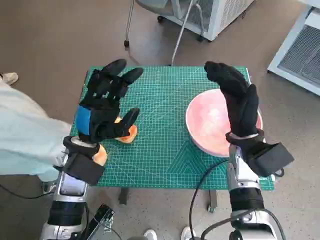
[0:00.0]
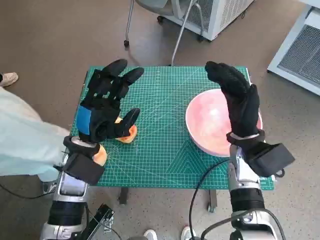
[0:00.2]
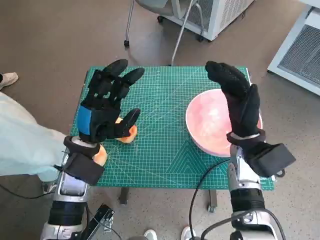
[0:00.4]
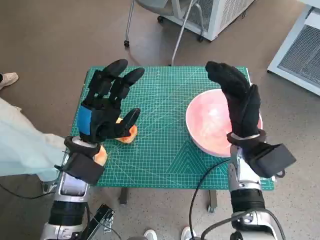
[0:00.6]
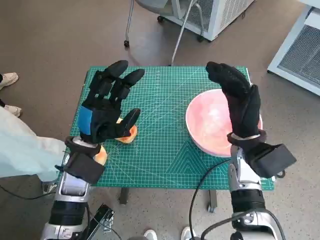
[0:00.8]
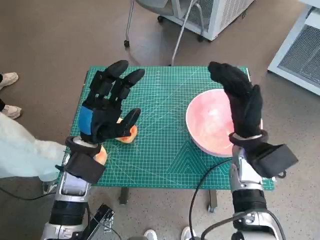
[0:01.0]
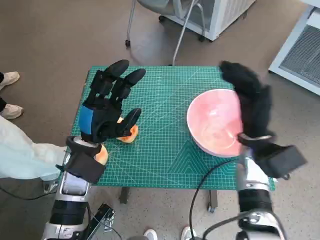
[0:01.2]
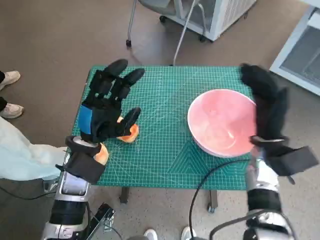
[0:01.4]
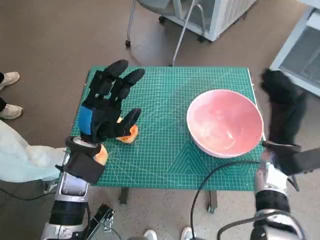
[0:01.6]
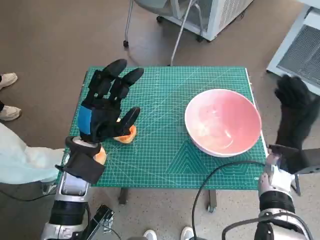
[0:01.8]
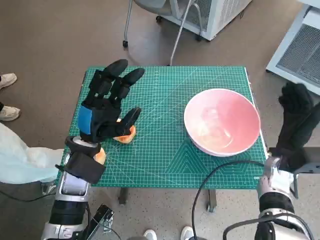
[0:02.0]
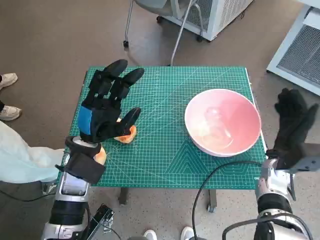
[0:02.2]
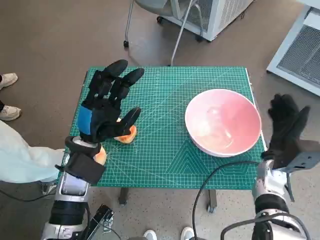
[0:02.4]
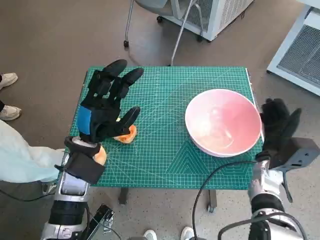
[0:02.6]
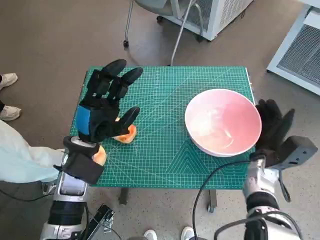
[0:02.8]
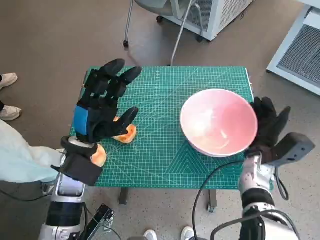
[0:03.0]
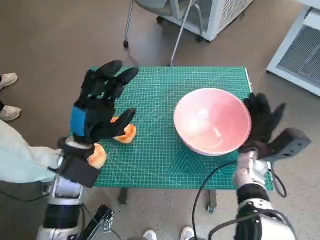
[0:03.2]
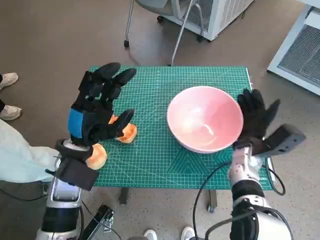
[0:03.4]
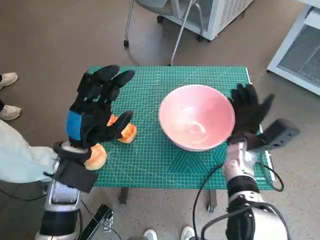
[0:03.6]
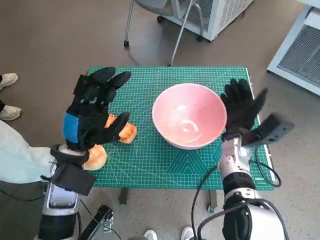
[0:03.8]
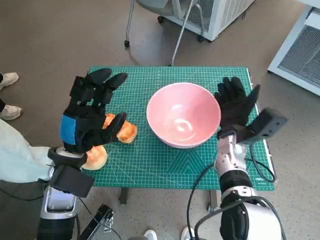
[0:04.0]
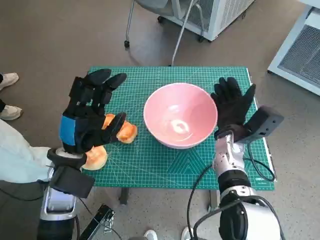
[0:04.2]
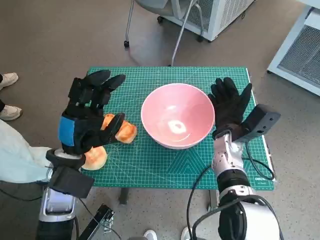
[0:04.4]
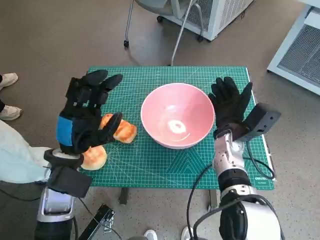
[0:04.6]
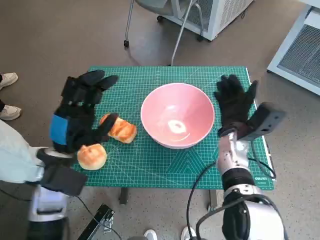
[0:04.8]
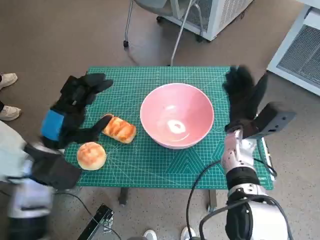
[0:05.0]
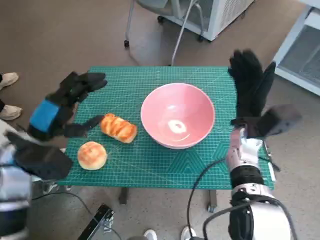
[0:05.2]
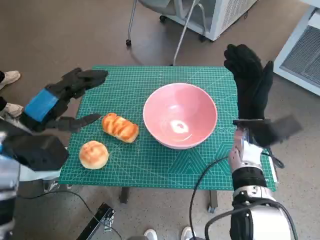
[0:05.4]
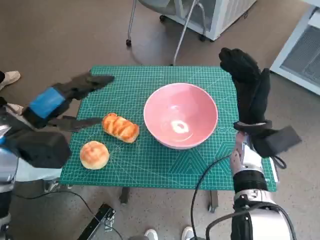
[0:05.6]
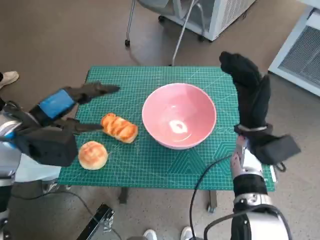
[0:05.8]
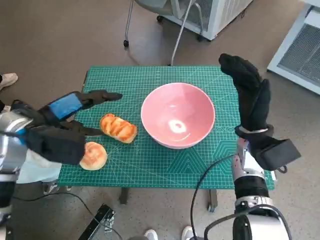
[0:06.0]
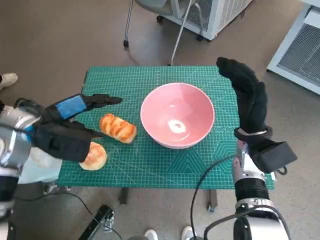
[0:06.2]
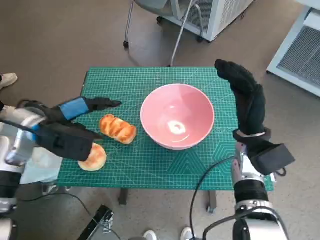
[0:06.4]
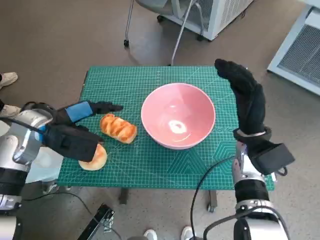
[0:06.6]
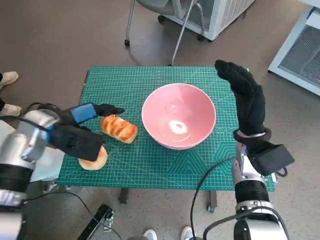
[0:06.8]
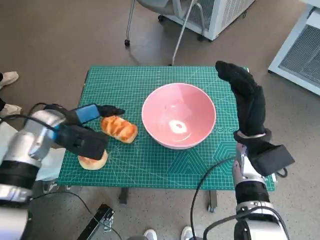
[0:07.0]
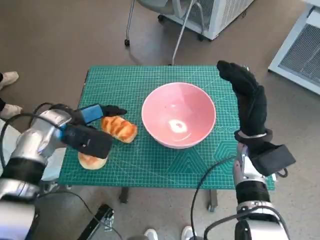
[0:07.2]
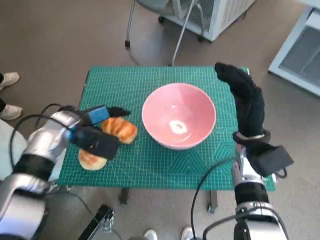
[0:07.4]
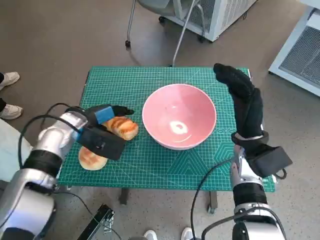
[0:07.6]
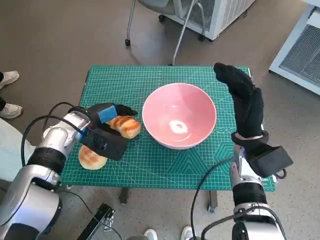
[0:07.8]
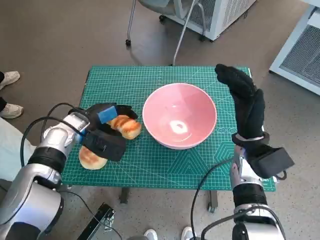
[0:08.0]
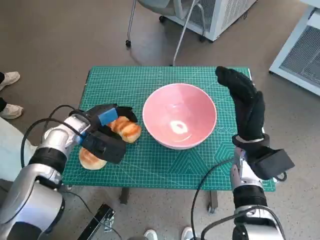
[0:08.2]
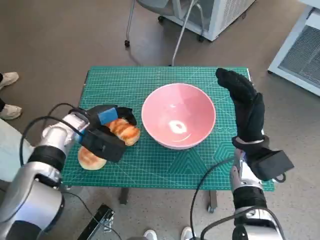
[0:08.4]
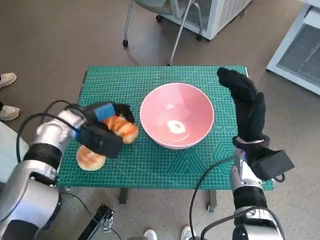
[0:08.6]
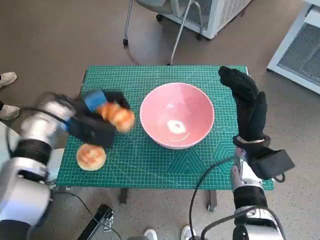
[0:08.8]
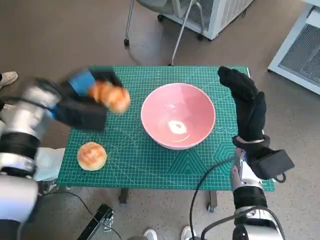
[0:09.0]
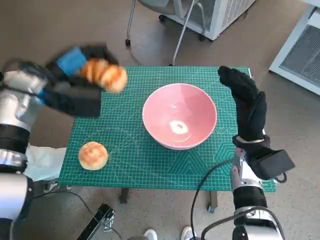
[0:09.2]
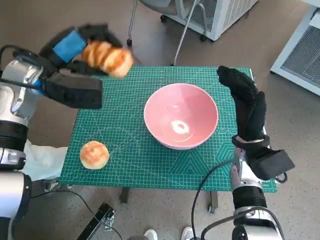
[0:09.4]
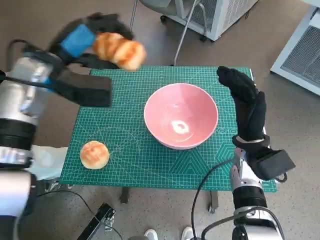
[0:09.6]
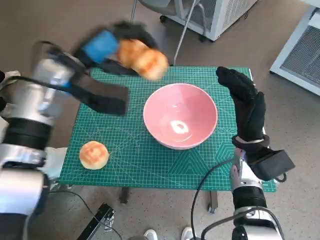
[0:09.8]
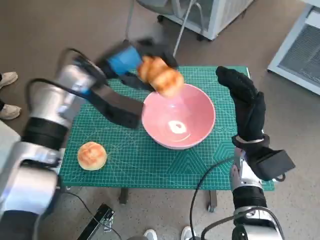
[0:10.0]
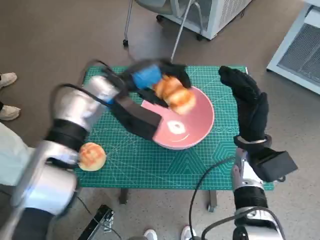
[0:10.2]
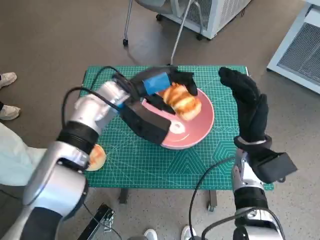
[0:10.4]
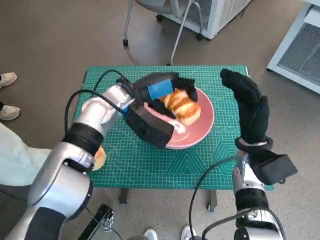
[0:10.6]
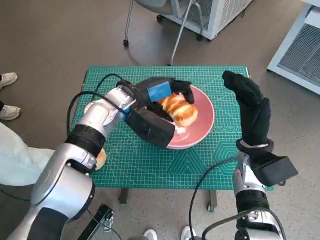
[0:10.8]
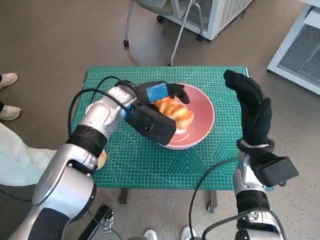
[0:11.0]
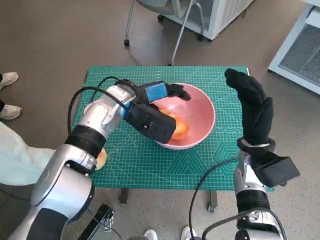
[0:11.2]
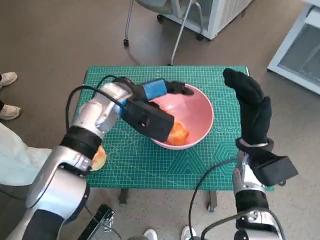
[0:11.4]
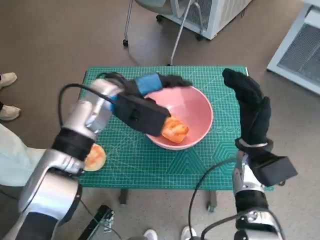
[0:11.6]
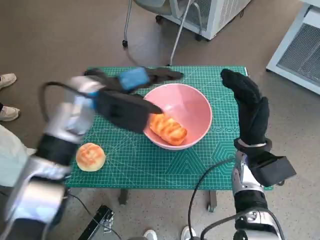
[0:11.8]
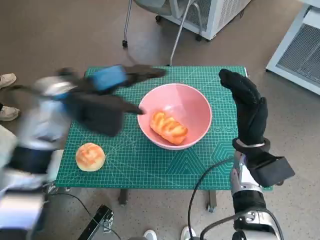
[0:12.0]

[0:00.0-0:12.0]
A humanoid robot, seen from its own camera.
Task of the whole recording: Push the bowl to the center of the table and put the bread into the bowl.
Step, 0.0 to 4.8 s: Move the pink bowl to the center of table with right hand.
Step, 5.0 to 8.0 s: Grasp the long bread with left hand.
Step, 8.2 to 11.4 s: Place the long bread in pink bowl with left hand.
1.6 to 3.0 s: The right hand heads downward, covering approximately 5 cm.
3.0 to 4.4 s: The right hand shifts roughly 5 cm to the left.
4.4 to 6.0 s: The right hand moves some 5 cm; the left hand is displaced upward and to the left by roughly 10 cm.
6.0 to 7.6 s: The left hand travels downward and forward by roughly 10 cm.
7.6 to 9.0 s: The left hand heads upward, covering roughly 5 cm.
9.0 to 10.4 s: The left hand heads to the right, covering approximately 15 cm.
10.4 to 12.0 s: The left hand shifts about 5 cm to the left.

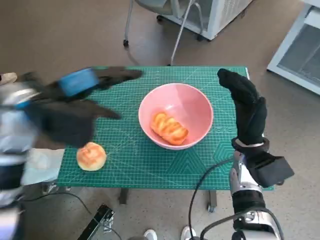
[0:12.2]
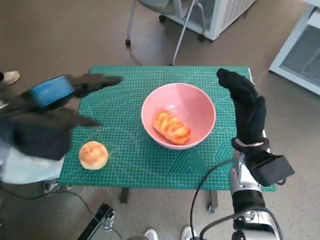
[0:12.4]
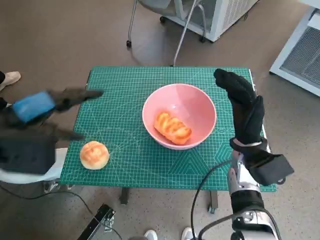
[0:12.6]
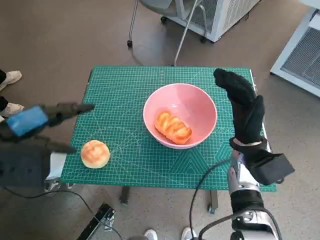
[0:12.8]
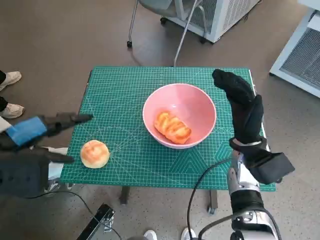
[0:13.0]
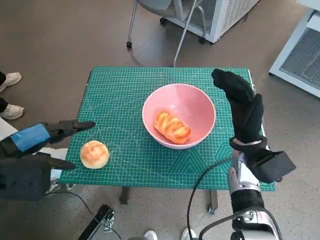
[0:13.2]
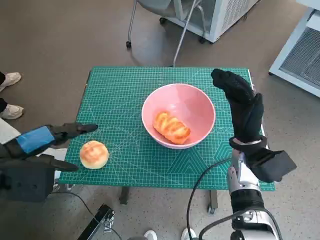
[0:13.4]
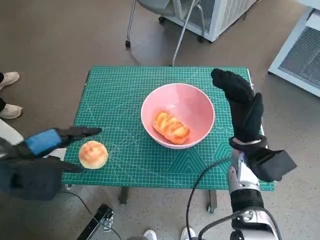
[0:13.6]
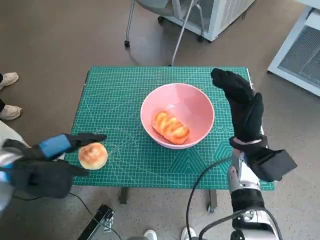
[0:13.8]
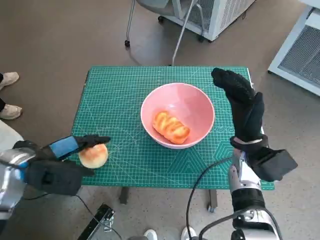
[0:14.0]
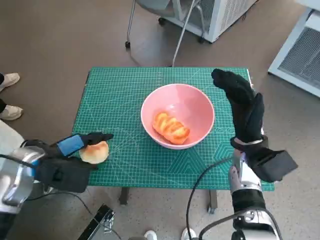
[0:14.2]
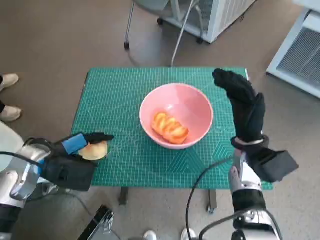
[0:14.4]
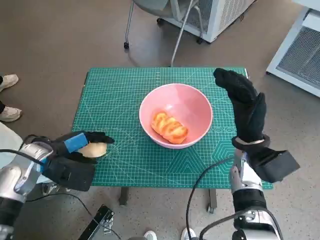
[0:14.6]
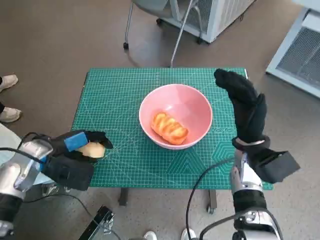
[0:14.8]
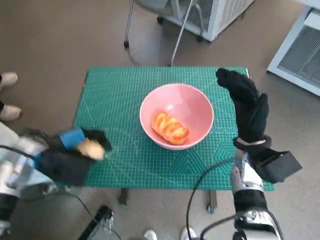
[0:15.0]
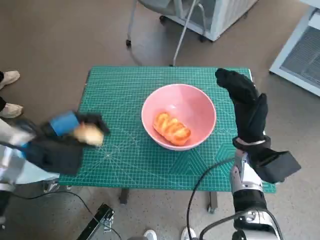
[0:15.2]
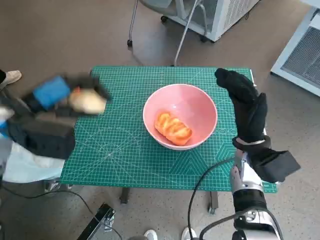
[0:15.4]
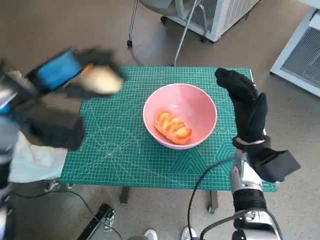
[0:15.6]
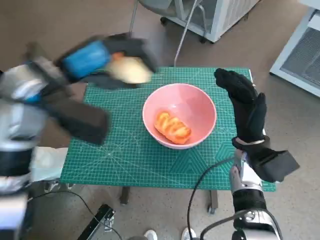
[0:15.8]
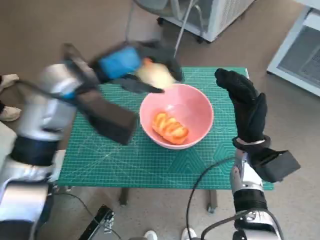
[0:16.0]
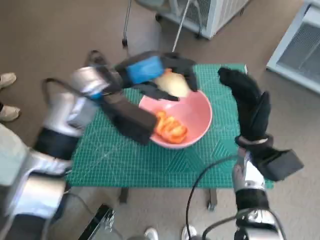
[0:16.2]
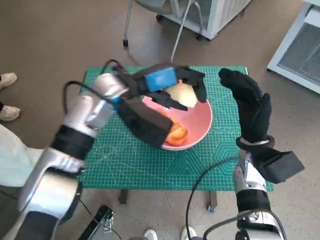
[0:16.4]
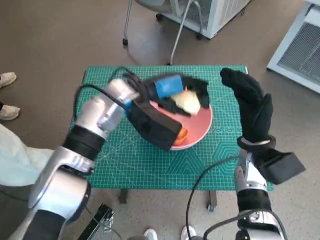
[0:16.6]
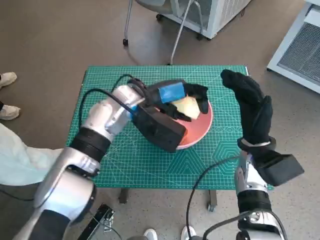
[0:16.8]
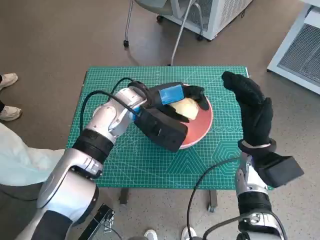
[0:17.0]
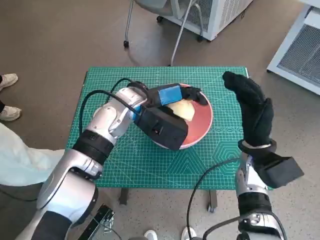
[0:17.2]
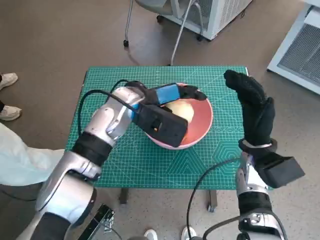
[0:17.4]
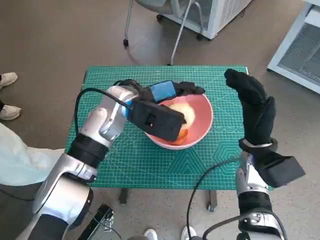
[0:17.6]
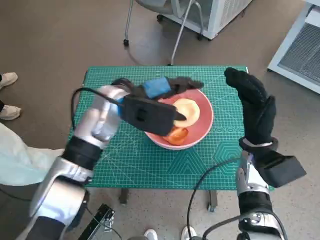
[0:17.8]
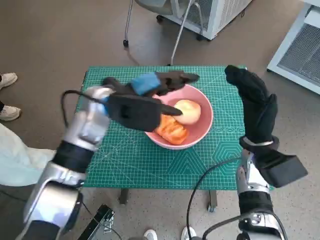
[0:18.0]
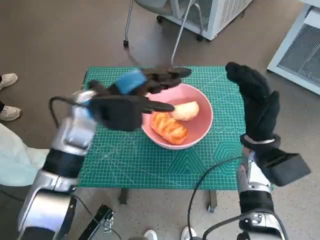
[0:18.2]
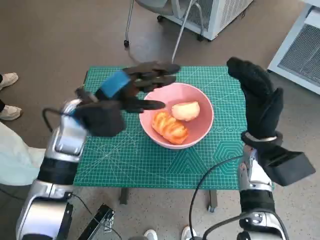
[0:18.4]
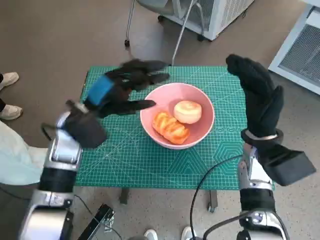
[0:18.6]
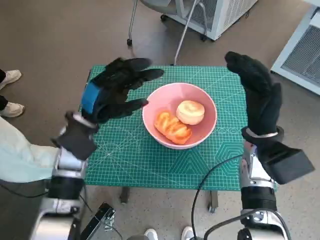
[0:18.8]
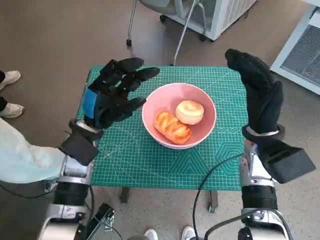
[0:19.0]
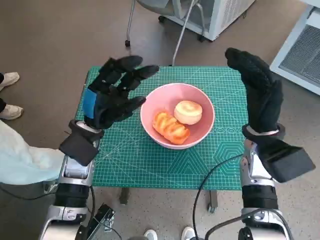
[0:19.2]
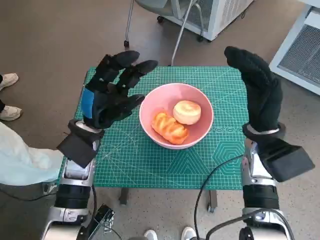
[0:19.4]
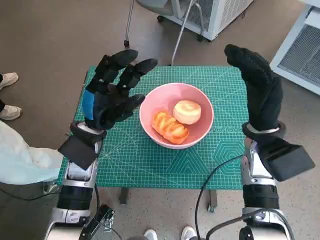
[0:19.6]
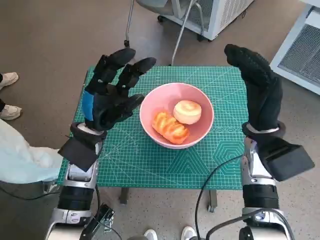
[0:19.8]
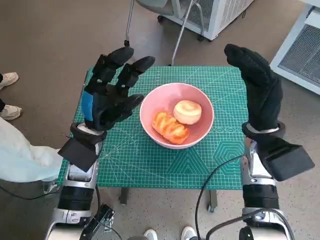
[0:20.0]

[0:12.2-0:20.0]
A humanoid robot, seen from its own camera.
Task of the whole recording: Push the bowl to the center of the table and put the bread into the bowl.
Step, 12.2 to 14.4 s: Grasp the round bread with left hand.
Step, 14.6 to 17.6 s: Place the round bread in pink bowl with left hand.
12.2 to 13.8 s: The left hand shifts roughly 15 cm downward, backward and to the left.
13.8 to 15.4 s: The left hand moves forward, roughly 5 cm.
15.4 to 16.8 s: The left hand goes some 20 cm to the right and forward.
16.8 to 18.4 s: The left hand travels to the left by approximately 10 cm.
18.4 to 20.0 s: The left hand moves downward, some 5 cm.

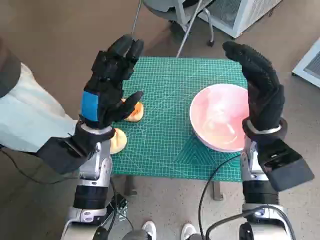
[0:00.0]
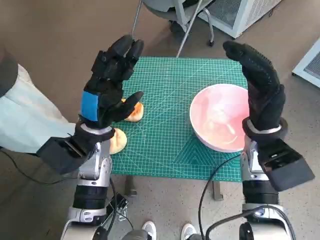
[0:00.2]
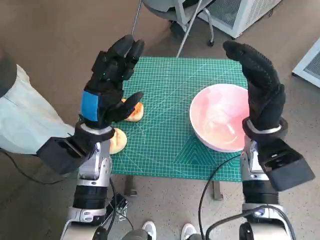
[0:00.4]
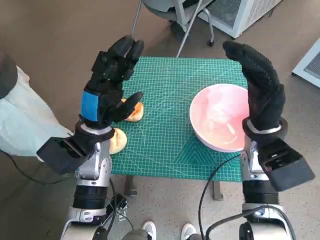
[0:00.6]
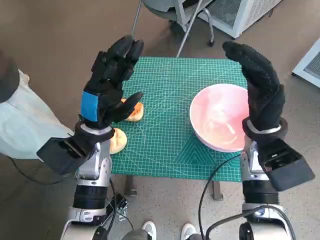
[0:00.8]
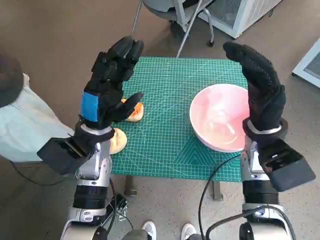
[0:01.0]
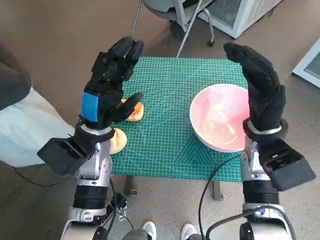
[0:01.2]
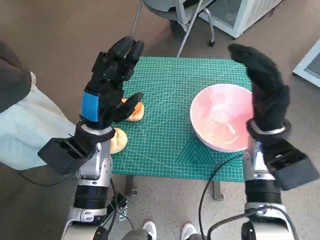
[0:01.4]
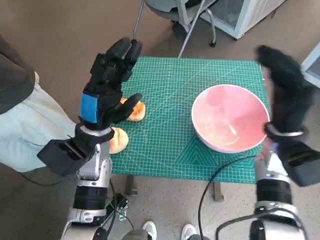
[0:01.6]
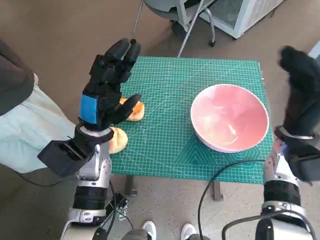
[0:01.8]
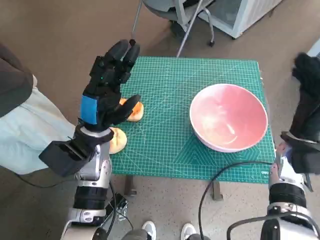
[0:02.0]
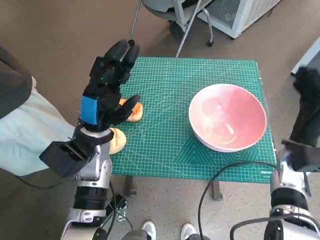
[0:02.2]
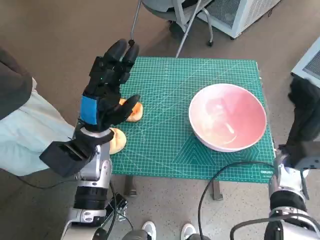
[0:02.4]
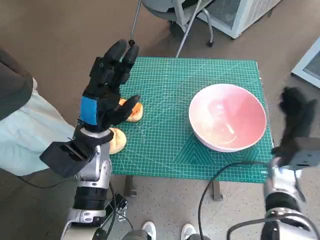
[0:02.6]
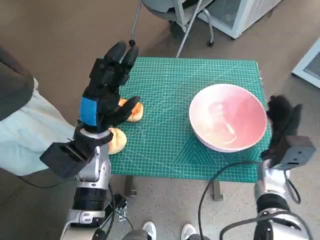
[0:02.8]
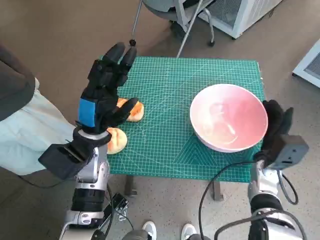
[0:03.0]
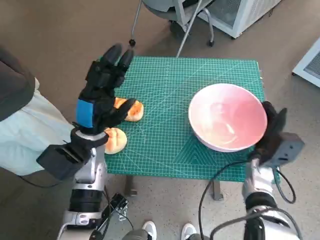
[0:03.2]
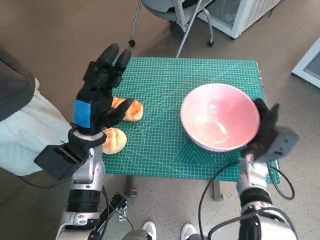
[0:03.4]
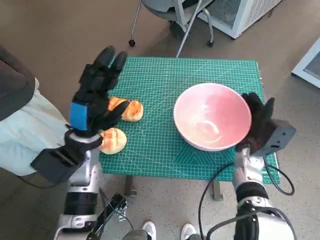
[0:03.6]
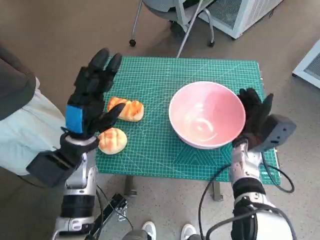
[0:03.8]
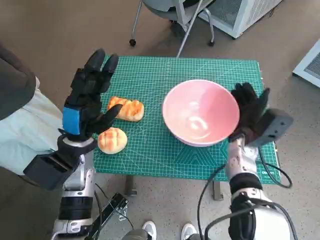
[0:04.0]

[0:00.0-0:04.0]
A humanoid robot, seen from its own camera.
Task of the whole recording: Push the bowl to the center of the table and put the bread into the bowl.
1.4 to 2.6 s: The right hand goes roughly 10 cm downward and to the right.
2.6 to 4.0 s: The right hand is displaced to the left by approximately 10 cm.
